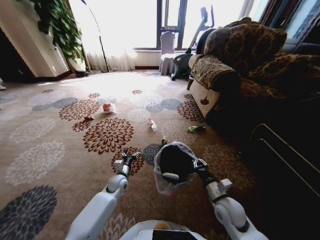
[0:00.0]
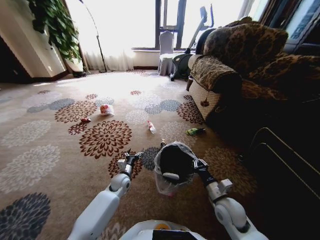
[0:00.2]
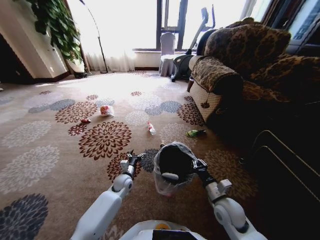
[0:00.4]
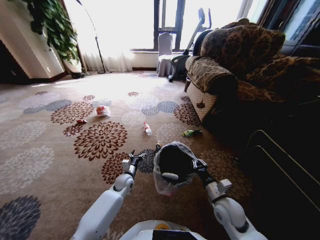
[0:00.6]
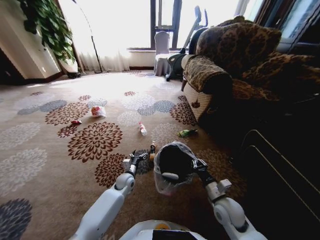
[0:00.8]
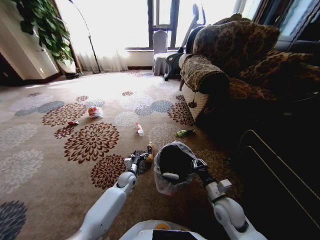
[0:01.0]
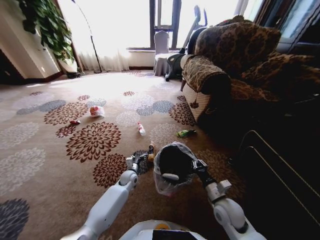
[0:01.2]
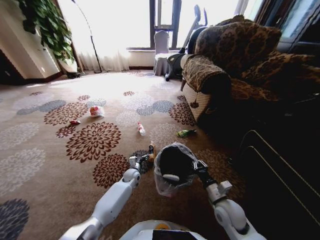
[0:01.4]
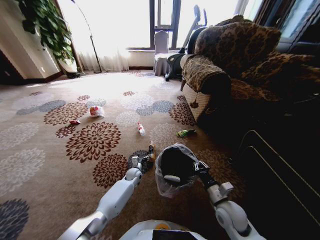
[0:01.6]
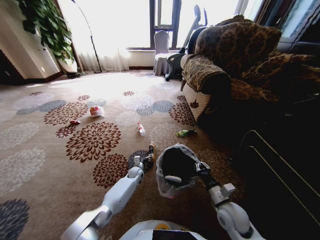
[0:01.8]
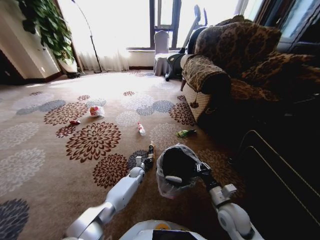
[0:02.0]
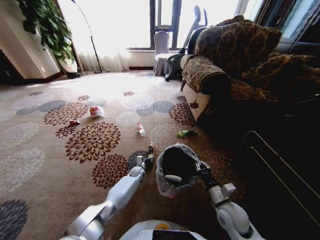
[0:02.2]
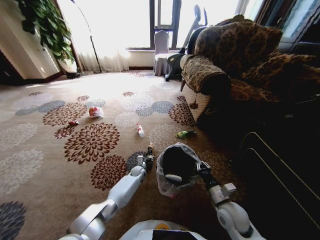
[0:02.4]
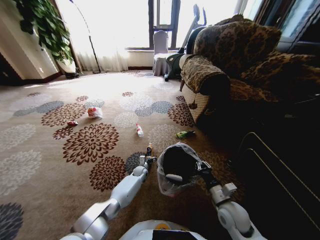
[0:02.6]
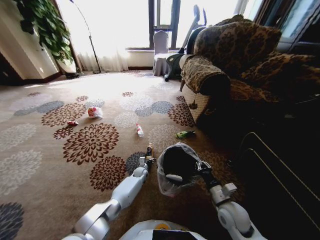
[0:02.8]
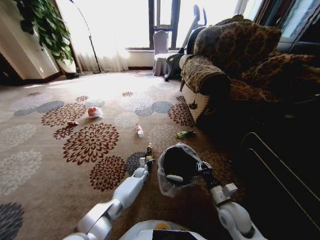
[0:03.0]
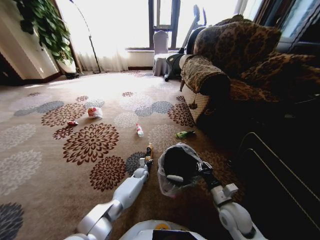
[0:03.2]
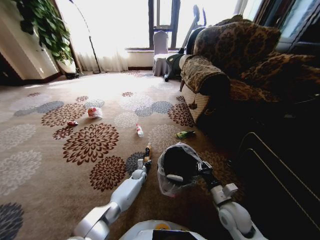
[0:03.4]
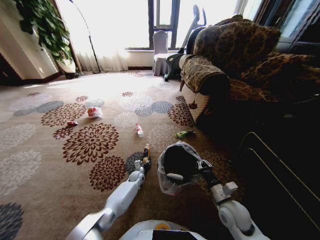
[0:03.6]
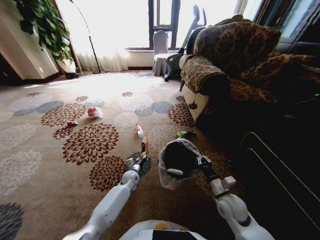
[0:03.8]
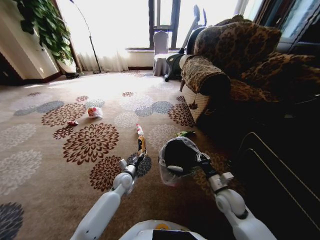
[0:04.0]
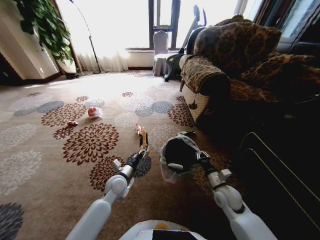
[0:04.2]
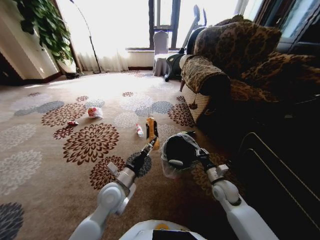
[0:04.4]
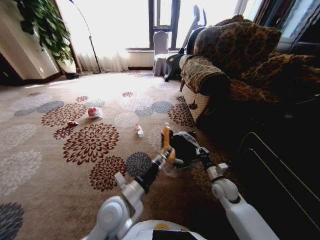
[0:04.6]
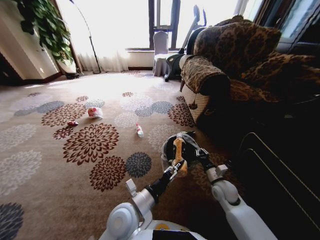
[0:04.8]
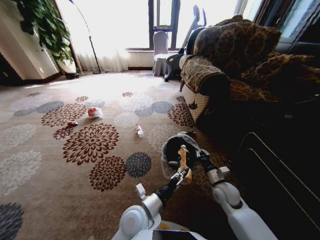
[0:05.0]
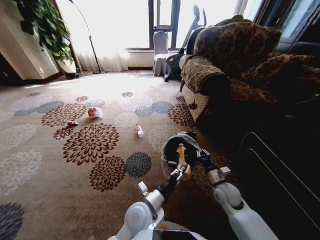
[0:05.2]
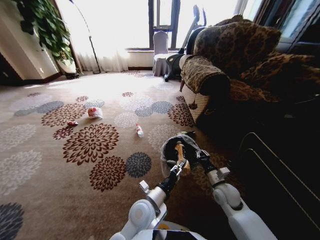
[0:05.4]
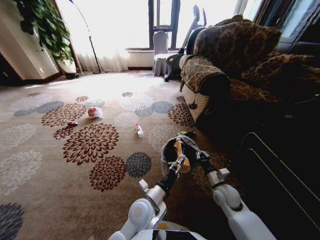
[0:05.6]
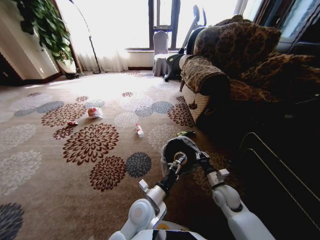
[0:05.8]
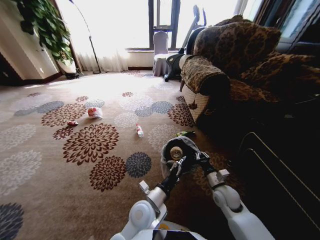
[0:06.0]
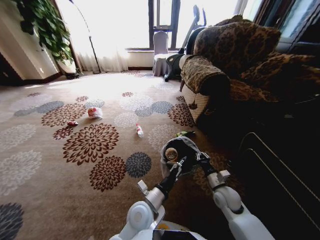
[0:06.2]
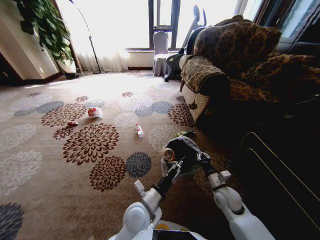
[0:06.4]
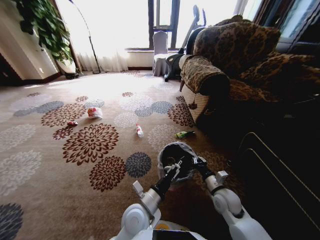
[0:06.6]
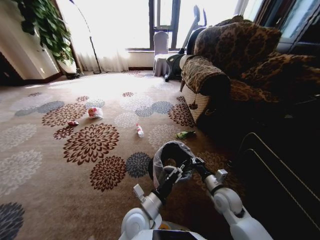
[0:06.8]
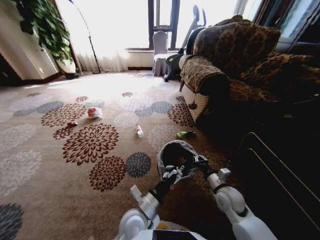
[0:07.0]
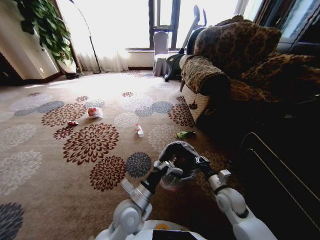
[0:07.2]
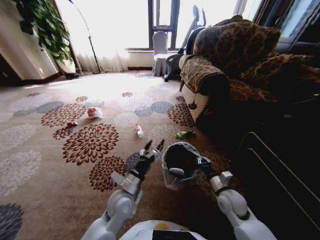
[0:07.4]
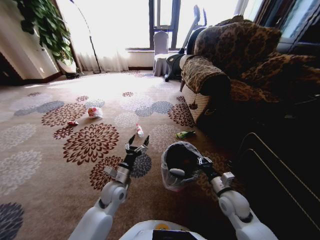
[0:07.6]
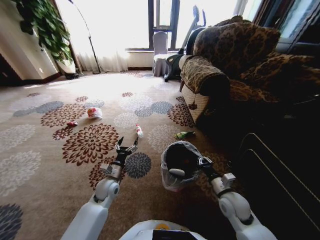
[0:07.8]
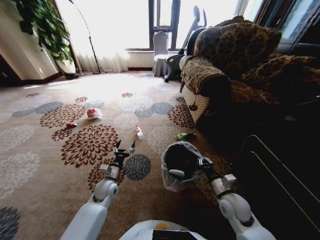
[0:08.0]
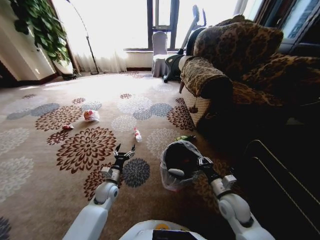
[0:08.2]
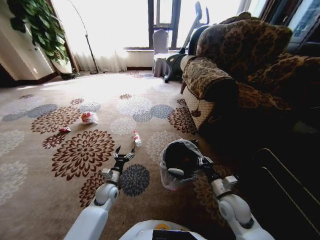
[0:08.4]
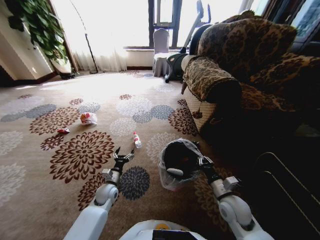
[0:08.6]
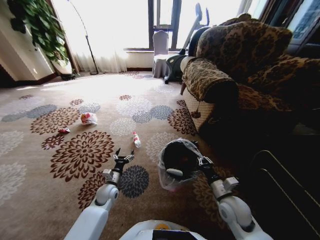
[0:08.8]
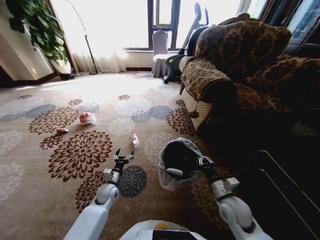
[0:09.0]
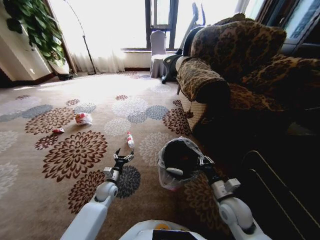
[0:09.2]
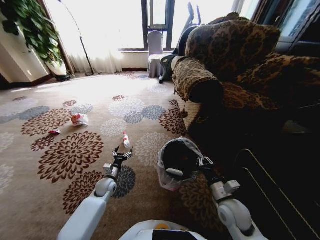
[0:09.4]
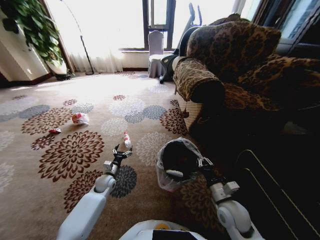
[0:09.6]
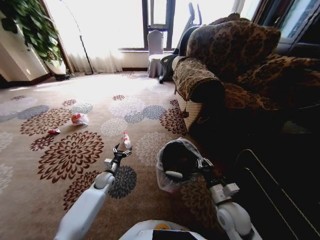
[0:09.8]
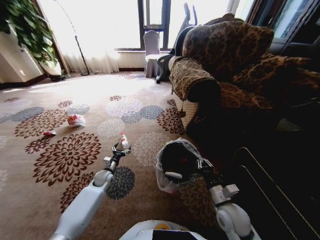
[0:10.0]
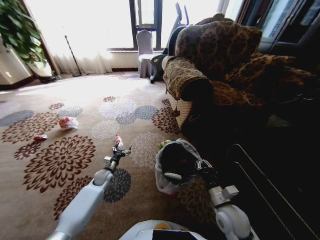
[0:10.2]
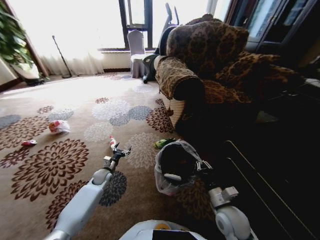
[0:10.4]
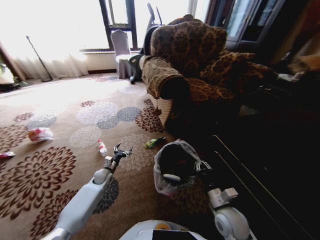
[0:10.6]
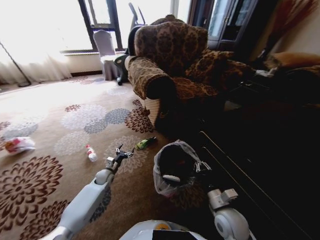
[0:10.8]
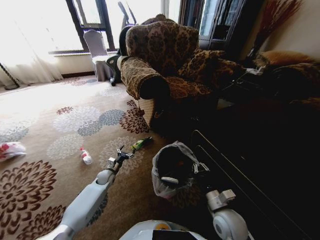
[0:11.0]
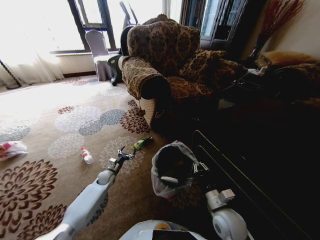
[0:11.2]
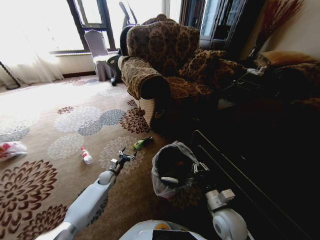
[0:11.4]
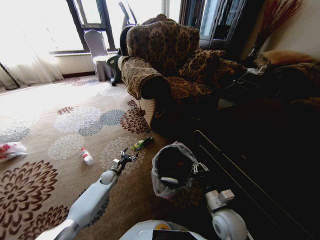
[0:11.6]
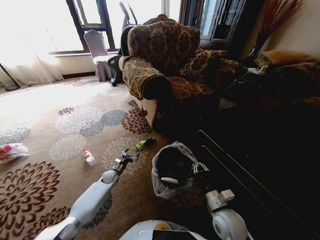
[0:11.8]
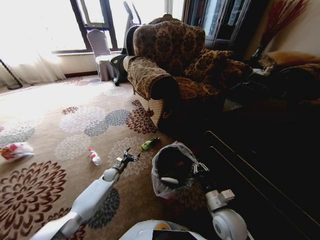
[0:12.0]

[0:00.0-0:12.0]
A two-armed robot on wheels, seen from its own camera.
Task of the whole recording: Pick up the trash from the ground and place it into the trash bin.
0:00.0 to 0:01.6: The left gripper heads forward, downward and to the right, covering some 10 cm.
0:01.6 to 0:03.0: The left gripper is displaced downward by some 5 cm.
0:03.0 to 0:04.4: The left gripper is displaced upward and backward by roughly 35 cm, and closes its fingers, while the right gripper is displaced forward by roughly 10 cm.
0:04.4 to 0:06.0: The left gripper goes about 15 cm to the right and backward, and opens up.
0:06.0 to 0:07.6: The left gripper is displaced to the left and forward by about 15 cm.
0:07.6 to 0:09.0: The left gripper goes about 10 cm downward and to the left.
0:09.0 to 0:10.4: The left gripper shifts some 10 cm forward and to the left.
0:10.4 to 0:12.0: The left gripper shifts roughly 5 cm downward.

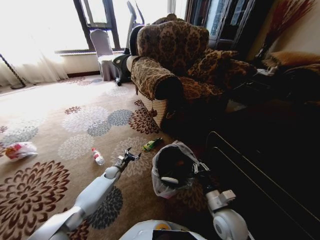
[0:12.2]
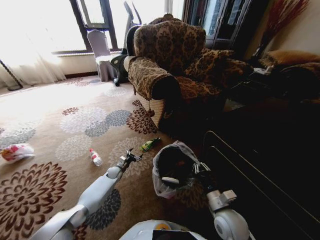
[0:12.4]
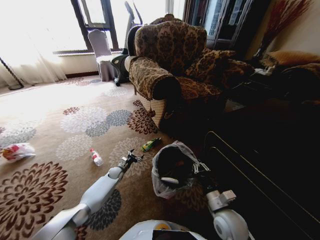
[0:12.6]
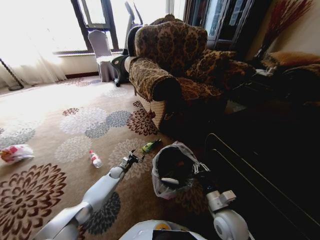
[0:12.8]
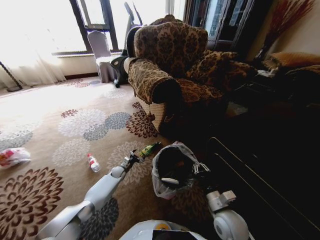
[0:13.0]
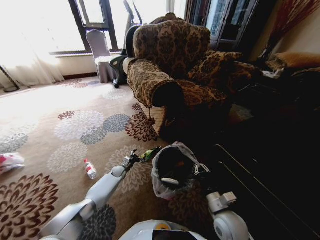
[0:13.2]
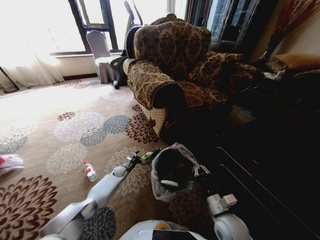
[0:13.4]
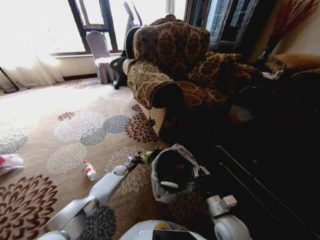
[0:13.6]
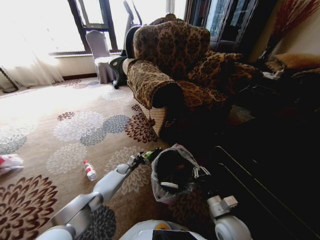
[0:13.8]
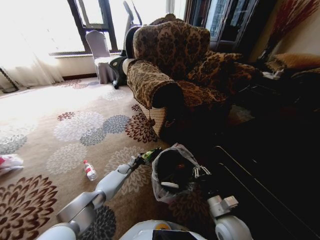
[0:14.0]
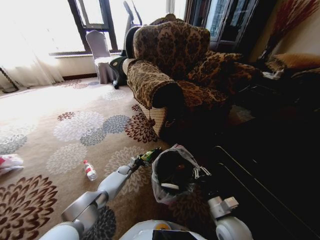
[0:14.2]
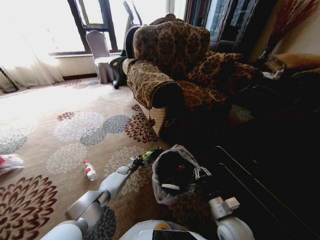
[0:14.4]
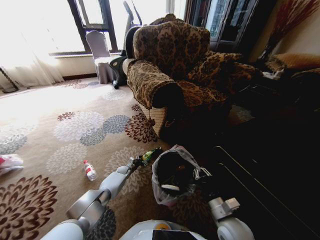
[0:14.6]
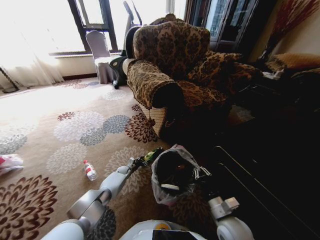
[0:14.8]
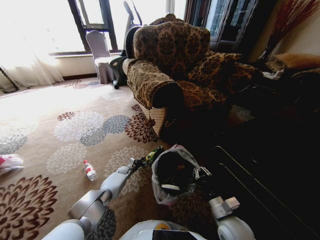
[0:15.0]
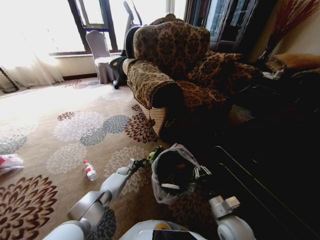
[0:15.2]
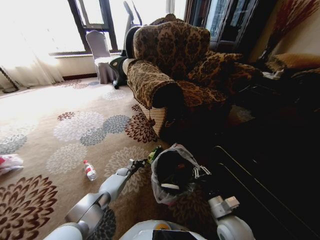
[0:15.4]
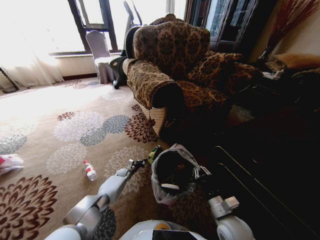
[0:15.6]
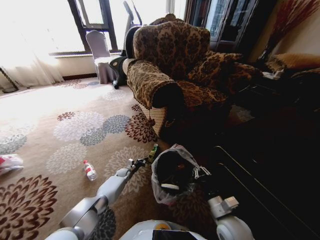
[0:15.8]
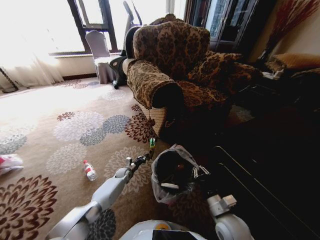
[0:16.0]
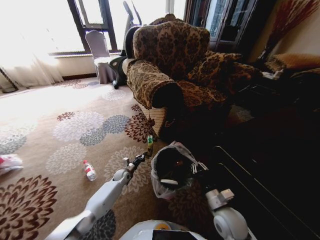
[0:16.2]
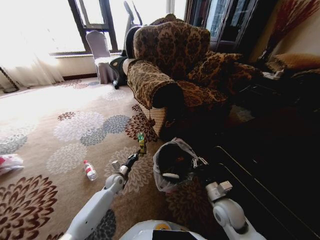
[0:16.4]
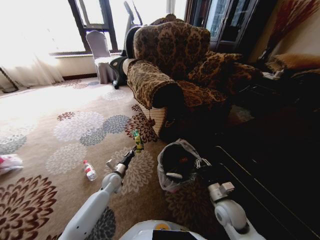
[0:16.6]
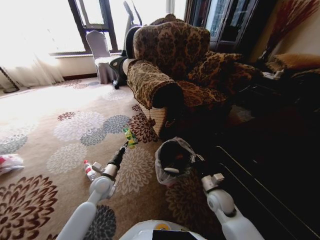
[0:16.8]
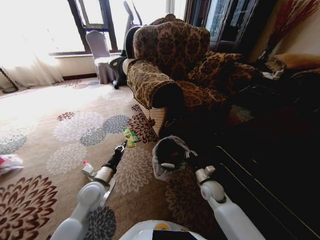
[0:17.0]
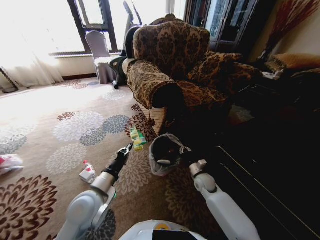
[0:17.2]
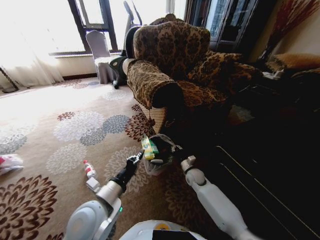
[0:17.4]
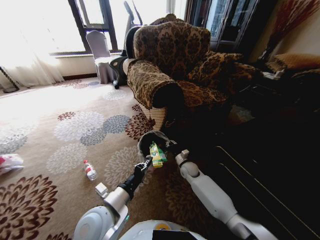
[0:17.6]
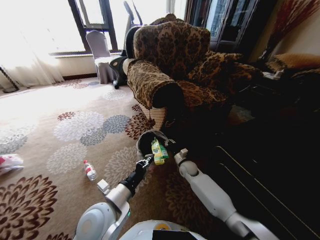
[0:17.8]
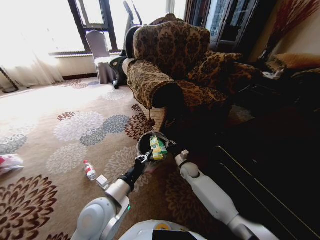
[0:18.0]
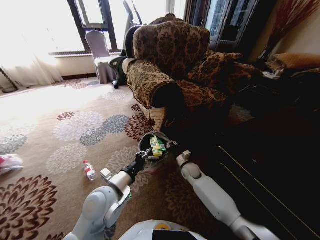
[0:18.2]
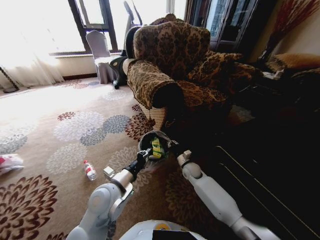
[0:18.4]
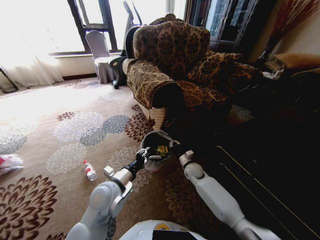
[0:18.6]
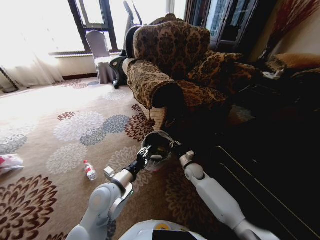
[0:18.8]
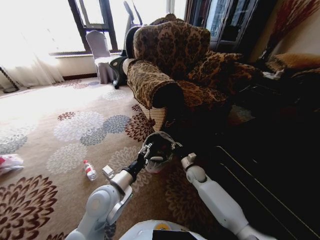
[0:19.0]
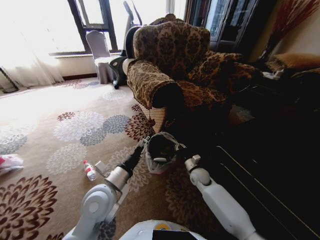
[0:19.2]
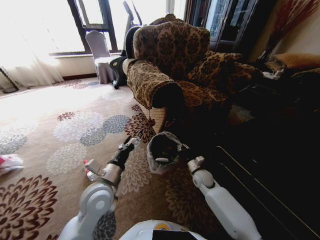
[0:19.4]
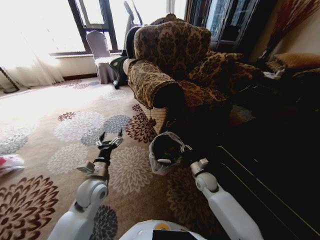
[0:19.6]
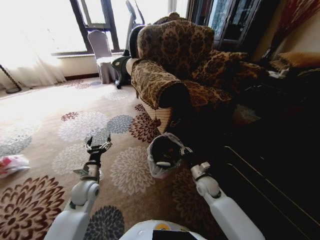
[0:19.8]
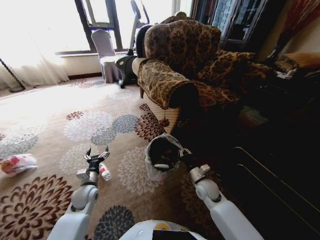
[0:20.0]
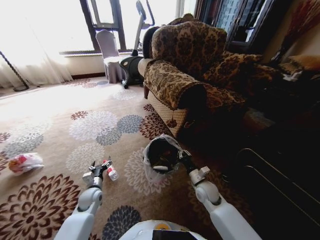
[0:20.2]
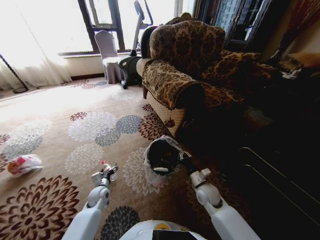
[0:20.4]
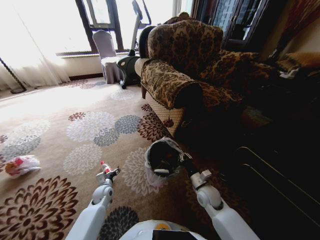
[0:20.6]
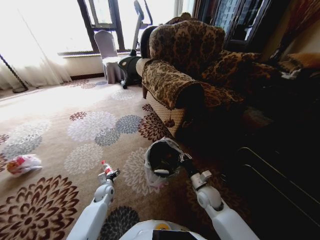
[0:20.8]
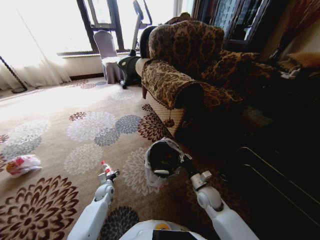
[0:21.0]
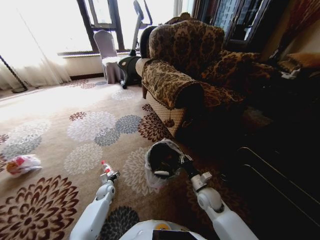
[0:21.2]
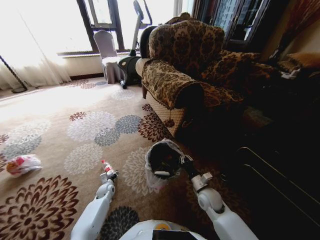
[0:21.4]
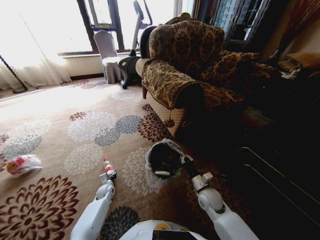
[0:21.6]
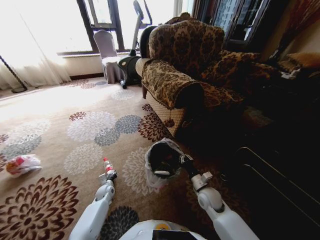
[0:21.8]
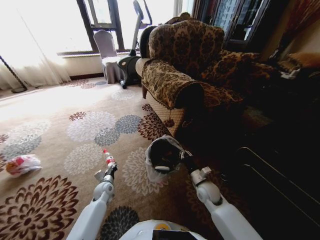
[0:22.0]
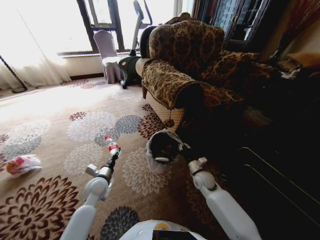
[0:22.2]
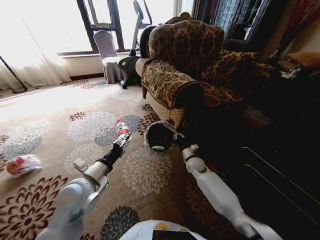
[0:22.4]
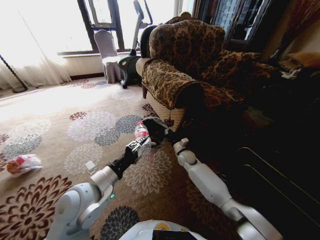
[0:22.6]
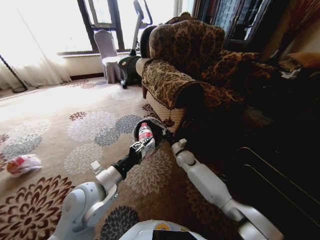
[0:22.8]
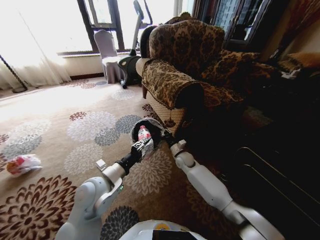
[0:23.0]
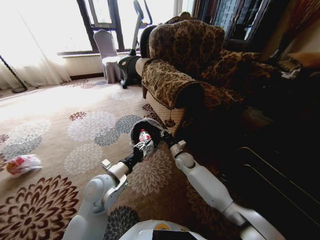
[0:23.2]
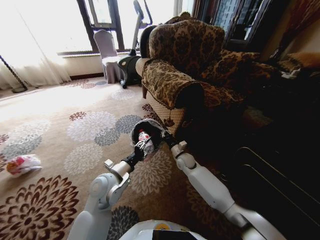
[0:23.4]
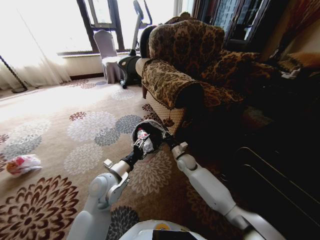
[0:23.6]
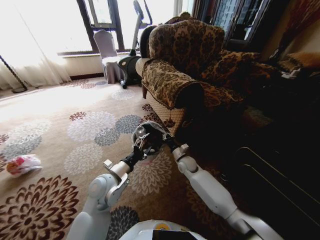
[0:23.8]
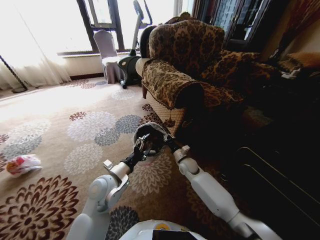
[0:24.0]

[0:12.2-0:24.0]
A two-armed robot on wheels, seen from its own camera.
Task of the whole recording: Pick up the trash from the ground and place it into the trash bin.
0:12.2 to 0:13.6: The left gripper moves approximately 5 cm.
0:13.6 to 0:15.2: The left gripper closes its fingers.
0:15.2 to 0:16.6: The left gripper heads upward and backward, covering approximately 20 cm. Meanwhile the right gripper heads forward, covering about 5 cm.
0:16.6 to 0:18.2: The right gripper heads forward and to the left, covering roughly 20 cm; the left gripper goes approximately 25 cm upward and backward.
0:18.2 to 0:19.6: The right gripper heads backward and to the right, covering some 10 cm. The left gripper moves to the left and downward, roughly 10 cm, and opens its fingers.
0:19.6 to 0:21.0: The left gripper travels downward by approximately 25 cm. Meanwhile the right gripper is displaced backward by some 5 cm.
0:21.0 to 0:22.6: The right gripper travels forward by about 20 cm; the left gripper heads upward, covering roughly 35 cm, and closes up.
0:22.6 to 0:24.0: The left gripper goes approximately 10 cm downward and forward, and opens its fingers.
